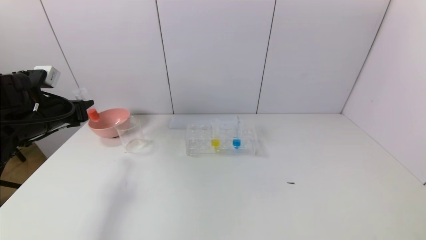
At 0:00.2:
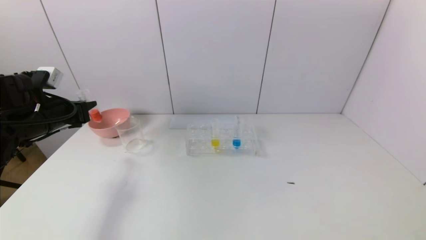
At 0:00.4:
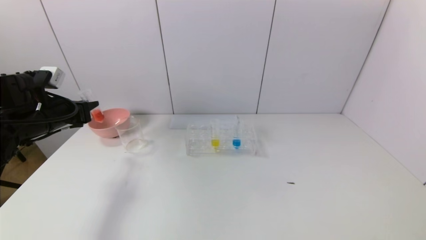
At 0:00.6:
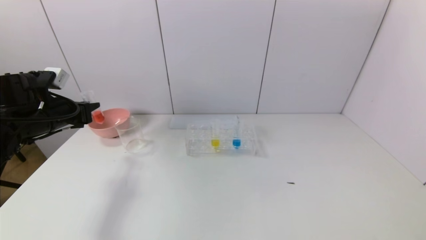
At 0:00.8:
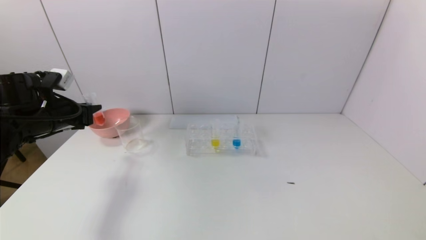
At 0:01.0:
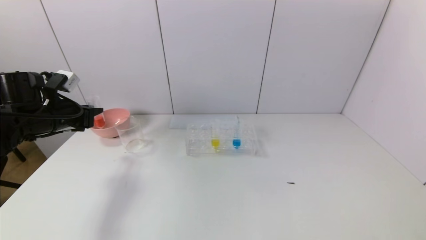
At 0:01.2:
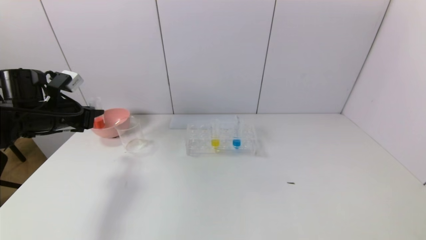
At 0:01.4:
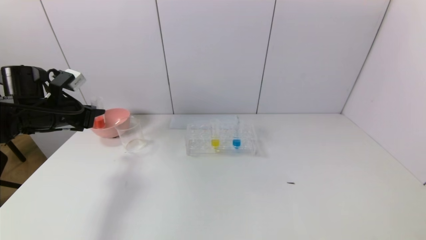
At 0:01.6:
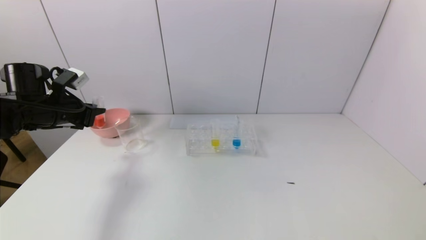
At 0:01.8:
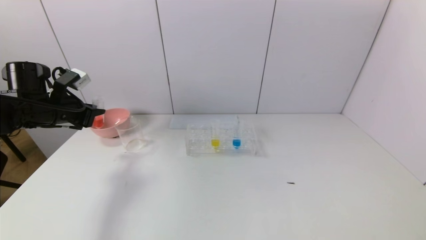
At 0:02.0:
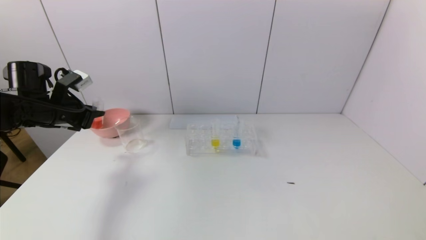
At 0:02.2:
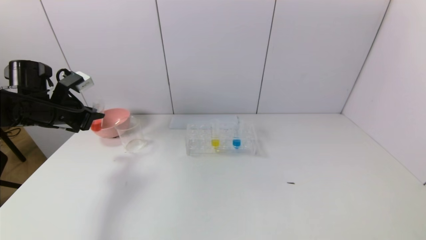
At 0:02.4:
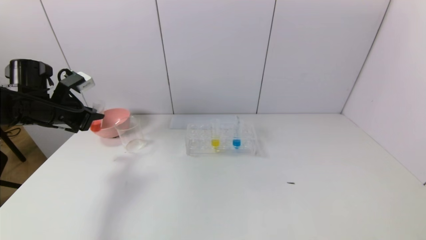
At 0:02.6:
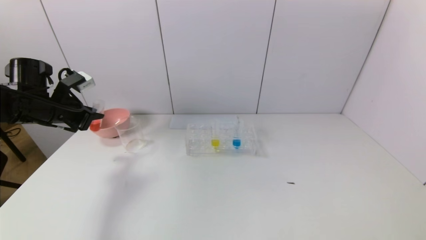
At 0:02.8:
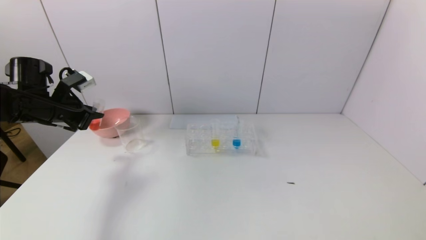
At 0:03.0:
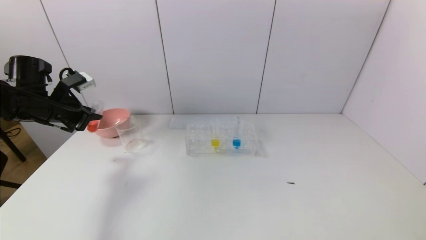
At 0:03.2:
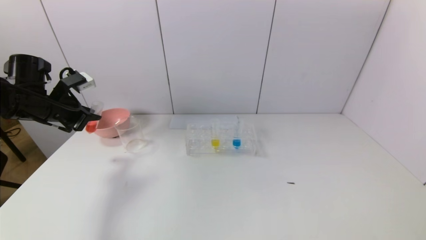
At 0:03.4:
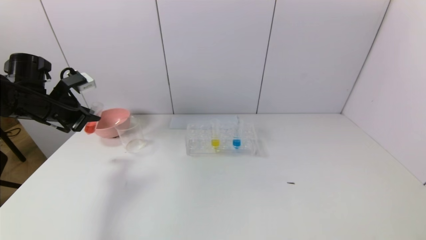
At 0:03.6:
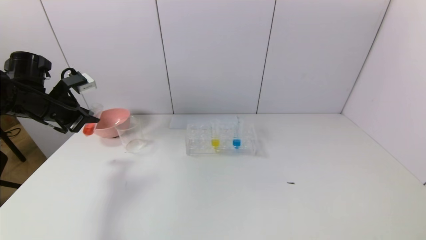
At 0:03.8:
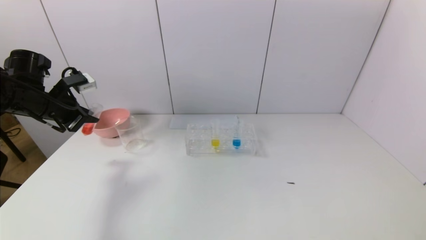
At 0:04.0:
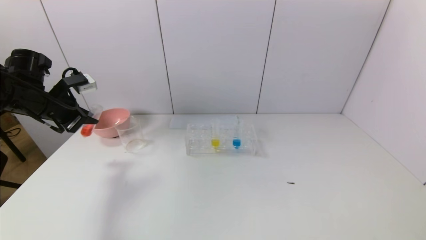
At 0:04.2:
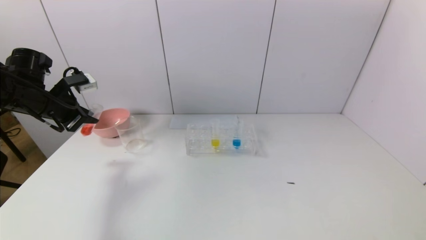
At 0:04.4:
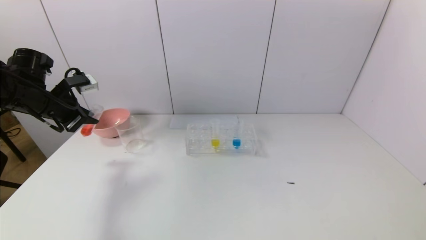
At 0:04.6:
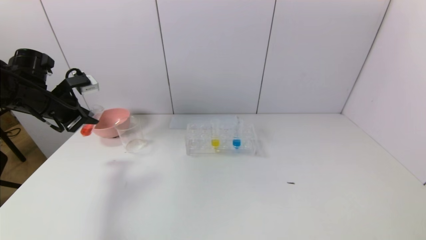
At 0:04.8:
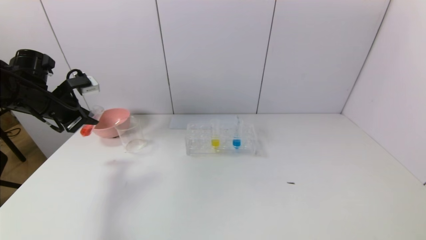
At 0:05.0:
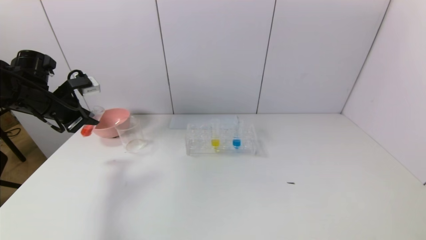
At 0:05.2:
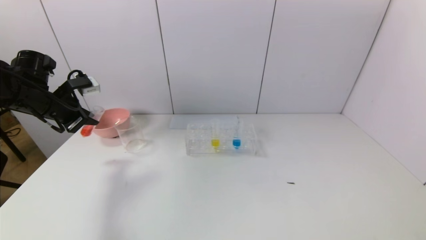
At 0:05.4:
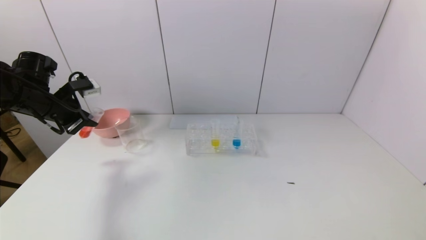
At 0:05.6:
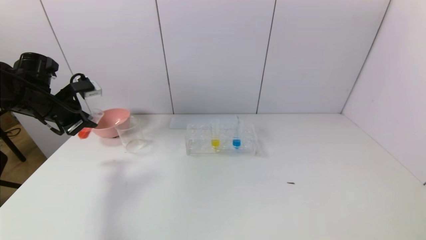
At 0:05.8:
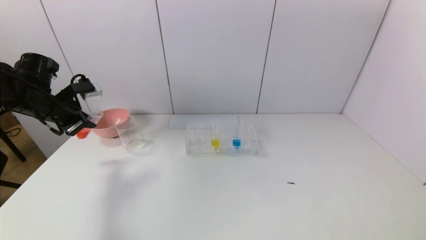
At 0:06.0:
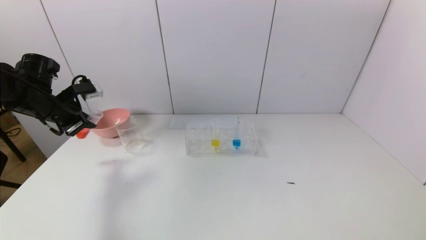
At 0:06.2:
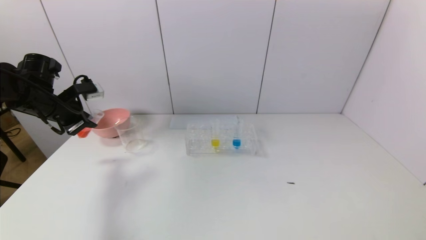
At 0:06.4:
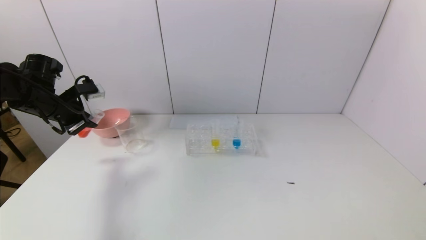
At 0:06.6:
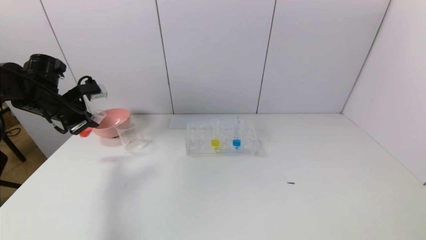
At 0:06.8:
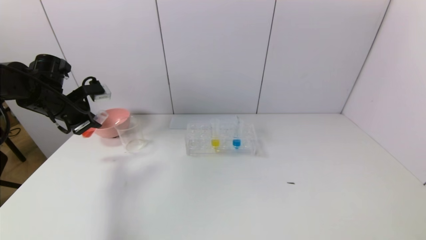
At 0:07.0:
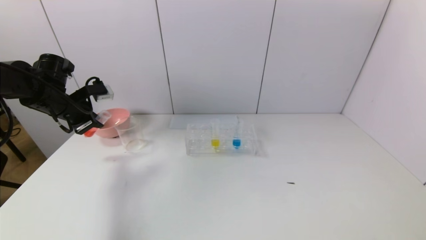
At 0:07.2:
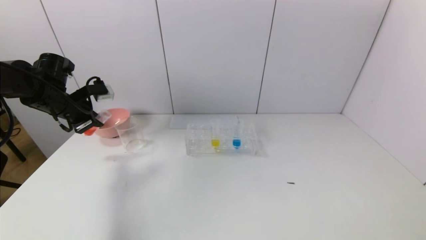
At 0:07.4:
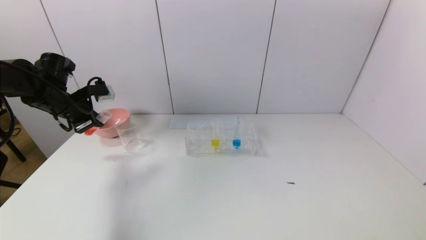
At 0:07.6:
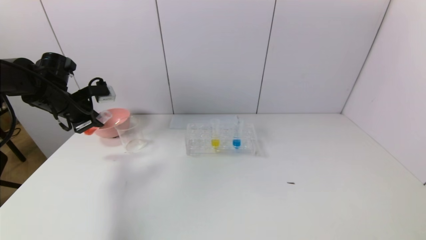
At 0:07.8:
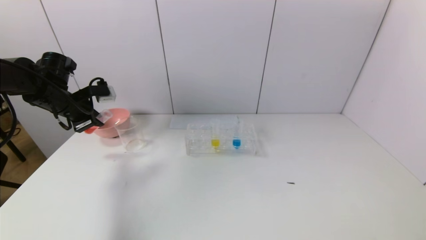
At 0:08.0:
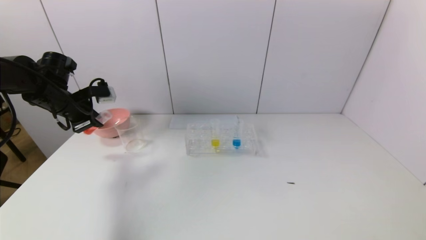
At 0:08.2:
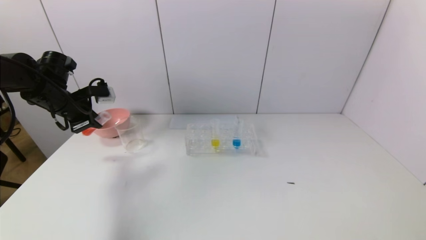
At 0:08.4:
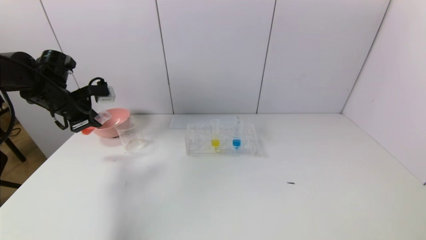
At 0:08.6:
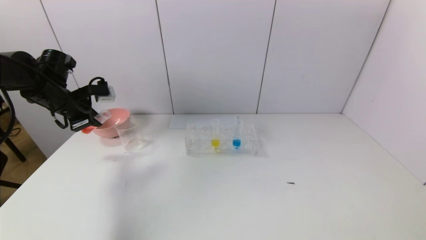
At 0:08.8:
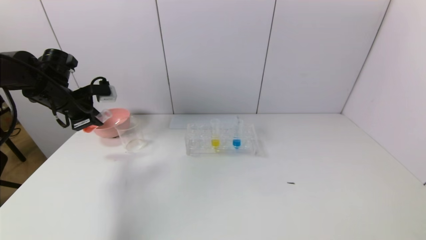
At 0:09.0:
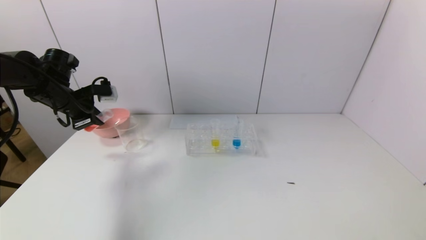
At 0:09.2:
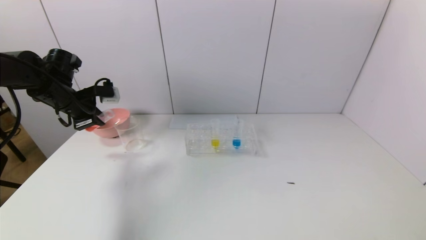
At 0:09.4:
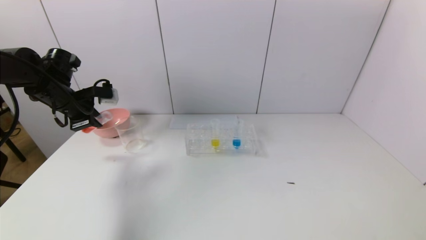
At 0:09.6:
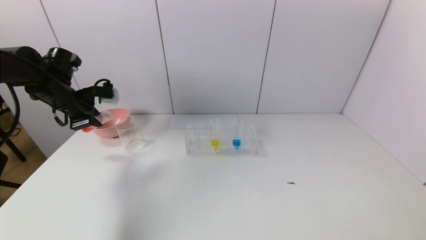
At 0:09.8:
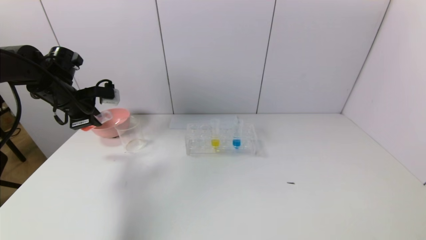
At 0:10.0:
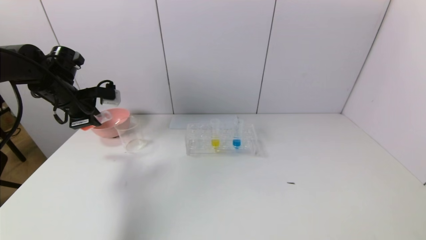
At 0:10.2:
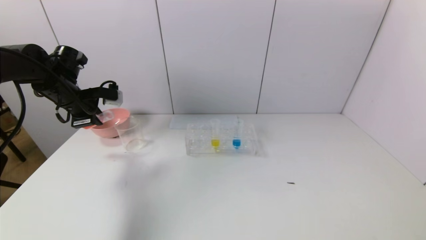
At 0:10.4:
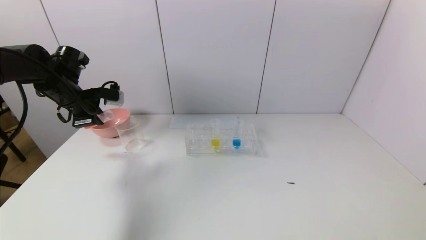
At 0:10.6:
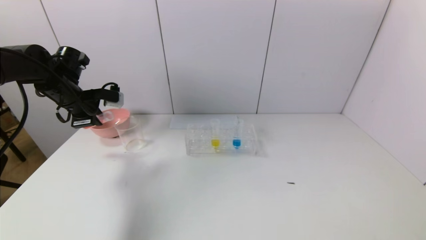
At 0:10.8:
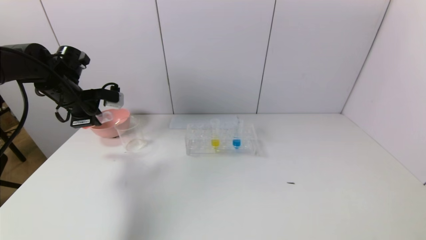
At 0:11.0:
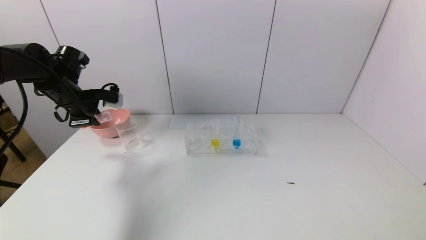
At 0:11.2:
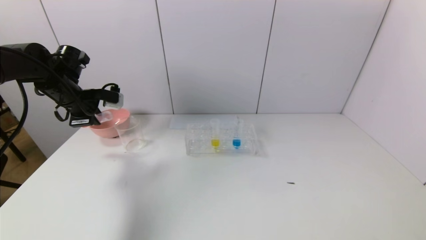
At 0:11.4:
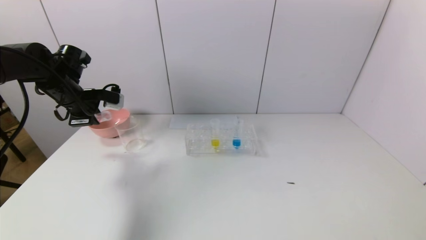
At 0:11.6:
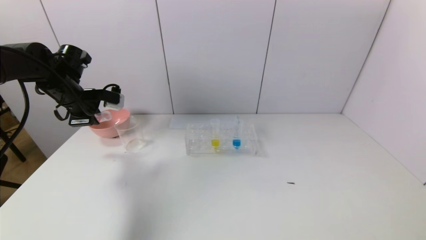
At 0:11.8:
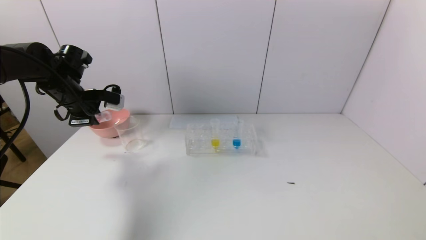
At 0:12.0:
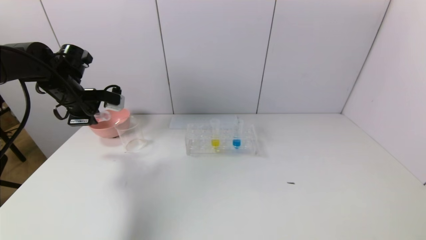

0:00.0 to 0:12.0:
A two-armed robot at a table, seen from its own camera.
Task of the whole recording: pick up the test tube with yellow pigment and the test tube with red pigment by grippers and pour them into the beaker.
0:01.6 to 0:03.0: There are only small adjustments of the grippers.
0:03.0 to 0:06.0: The grippers move only a little.
0:06.0 to 0:09.0: The grippers stay close to where they were, moving slightly.
0:09.0 to 0:10.4: The grippers move only a little.
0:10.4 to 0:12.0: The grippers stay close to where they were, moving slightly.

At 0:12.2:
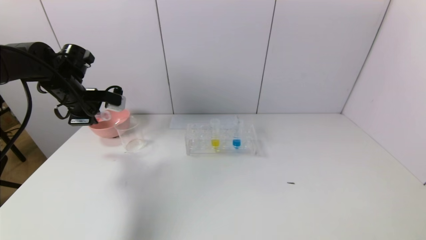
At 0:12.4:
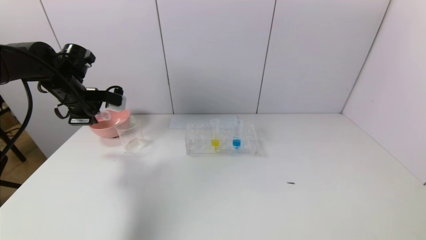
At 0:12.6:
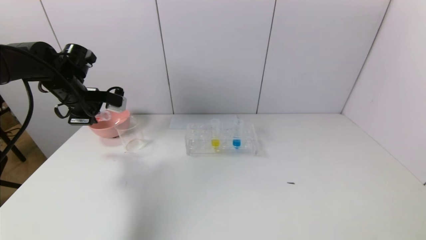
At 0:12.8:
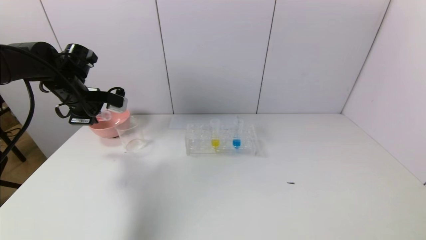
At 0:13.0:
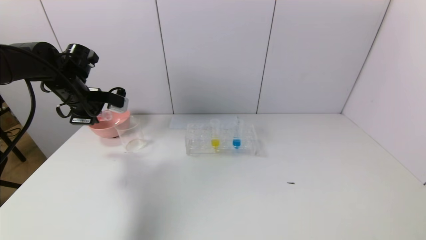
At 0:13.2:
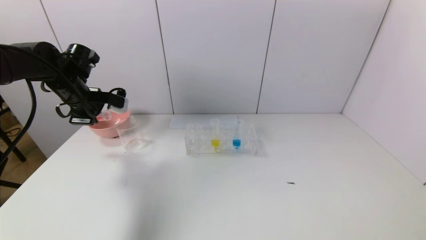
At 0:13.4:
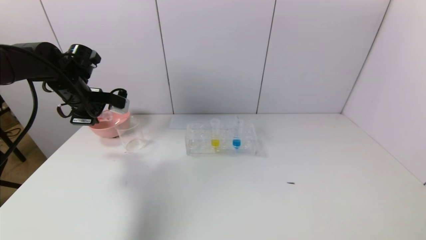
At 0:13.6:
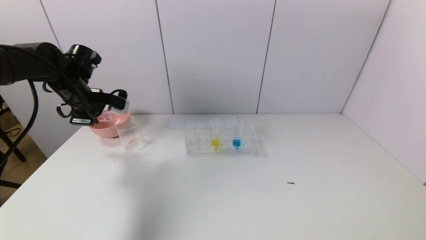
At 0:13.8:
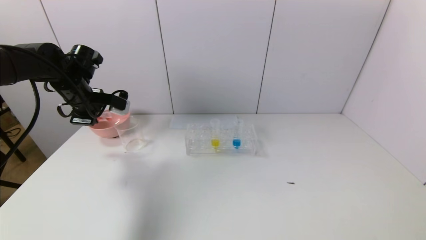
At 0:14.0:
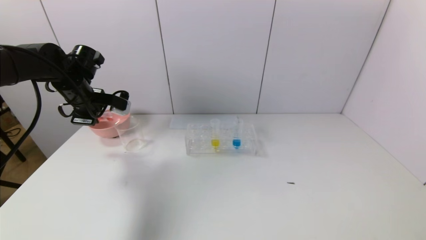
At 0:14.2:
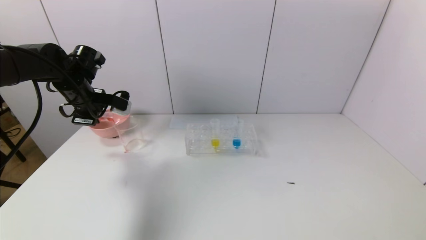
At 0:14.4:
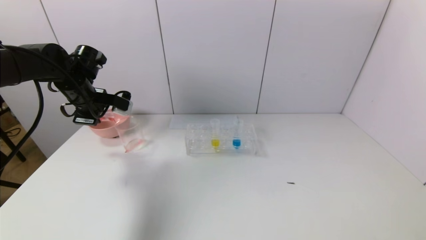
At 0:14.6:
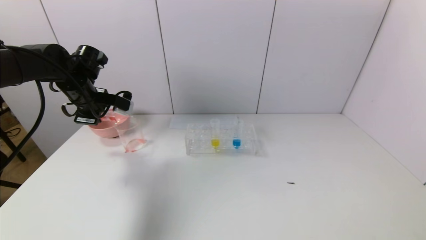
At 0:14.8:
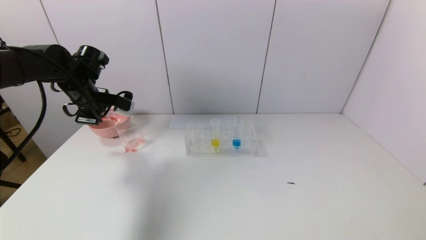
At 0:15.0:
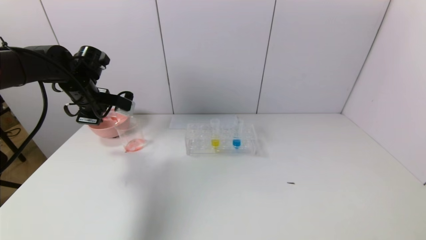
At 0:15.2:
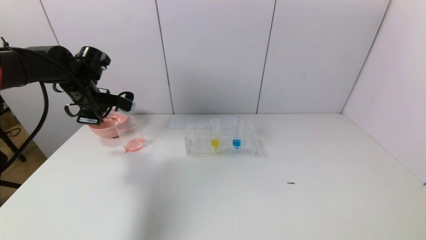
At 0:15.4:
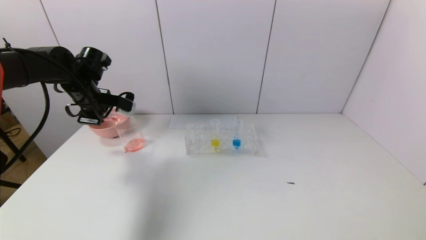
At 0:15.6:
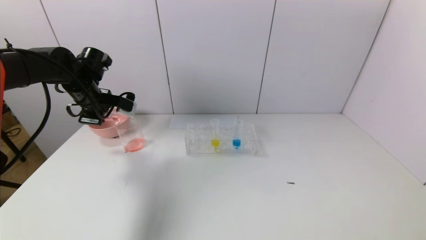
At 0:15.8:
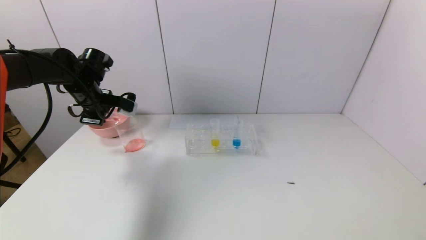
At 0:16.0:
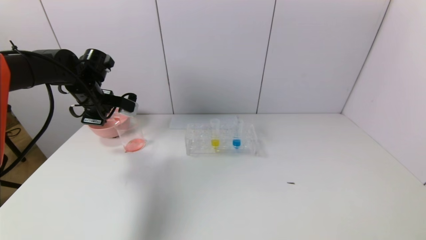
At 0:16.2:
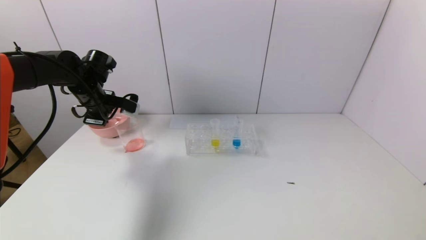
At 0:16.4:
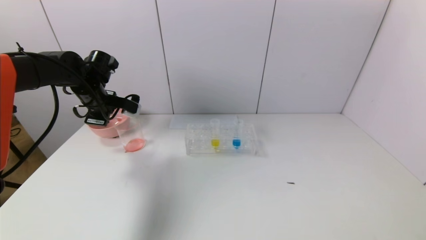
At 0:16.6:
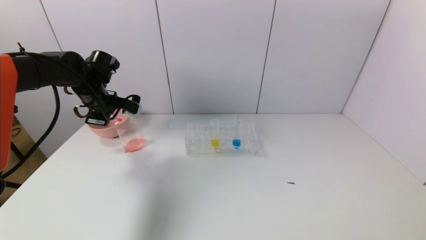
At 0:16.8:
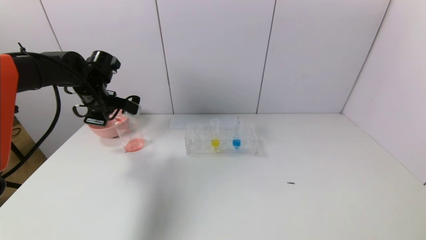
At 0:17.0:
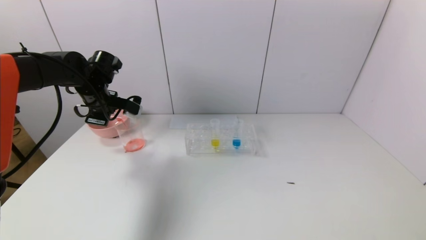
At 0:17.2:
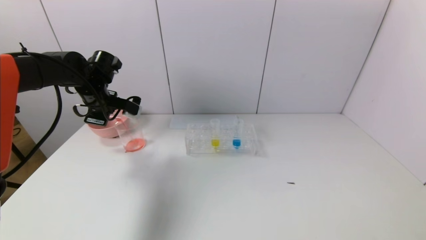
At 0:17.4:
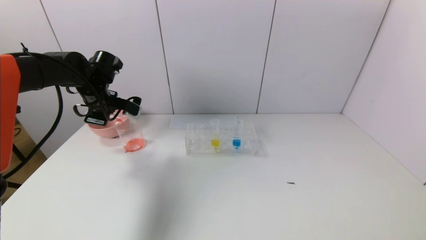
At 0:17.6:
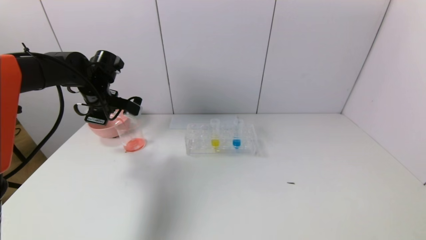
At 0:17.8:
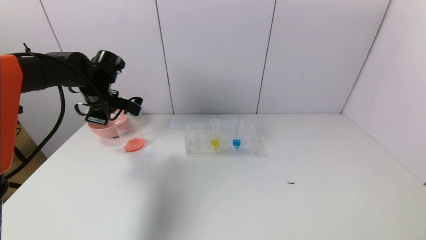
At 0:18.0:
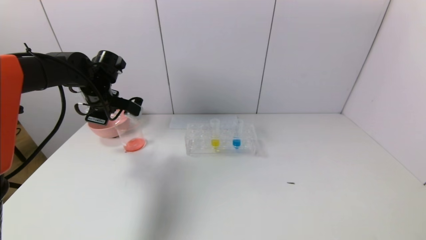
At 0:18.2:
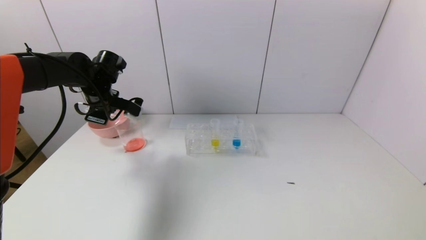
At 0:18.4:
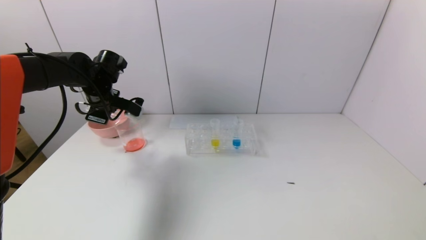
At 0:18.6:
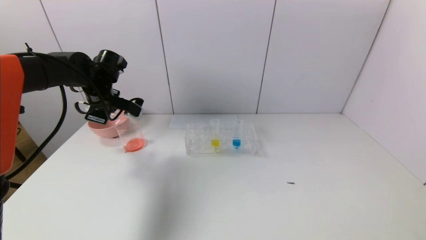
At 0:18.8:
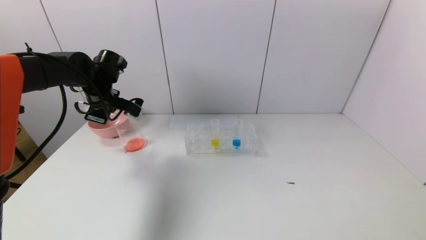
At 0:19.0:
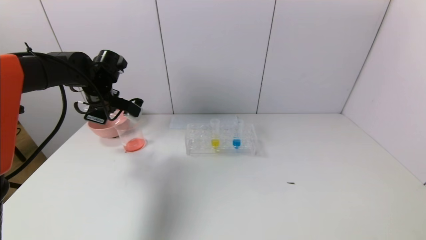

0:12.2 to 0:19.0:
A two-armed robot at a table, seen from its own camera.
Task of the whole recording: pick up the test tube with yellow pigment and the test tube with red pigment by grippers and pour them into the beaker.
0:12.2 to 0:17.6: The grippers stay close to where they were, moving slightly.
0:17.6 to 0:19.0: Both grippers stay about where they are.
